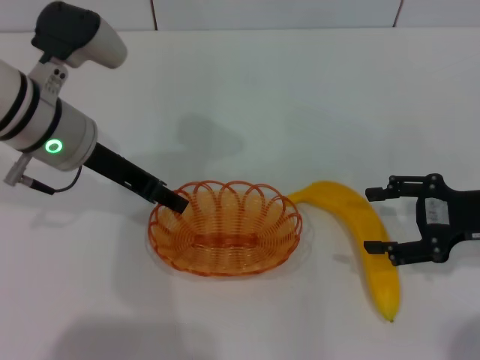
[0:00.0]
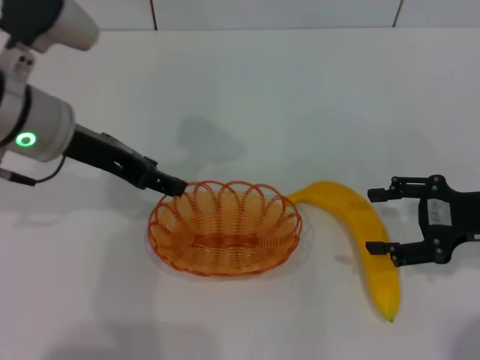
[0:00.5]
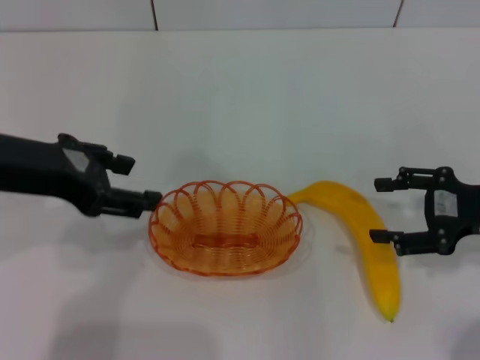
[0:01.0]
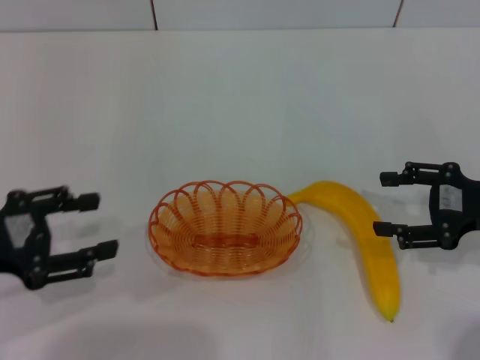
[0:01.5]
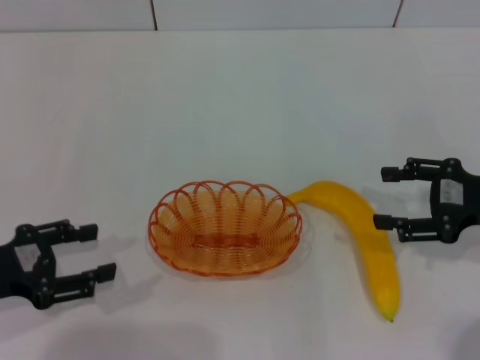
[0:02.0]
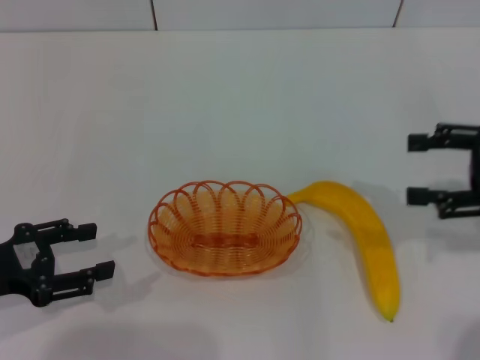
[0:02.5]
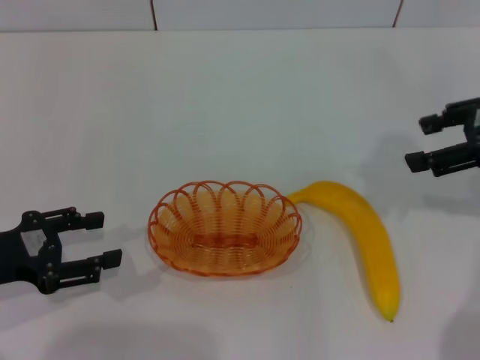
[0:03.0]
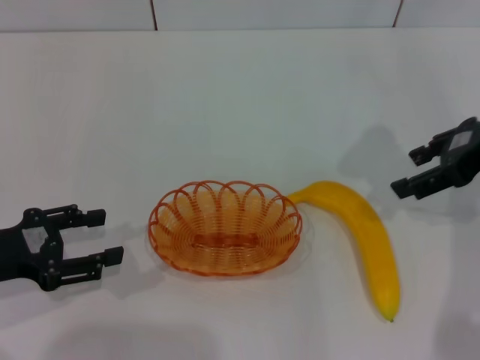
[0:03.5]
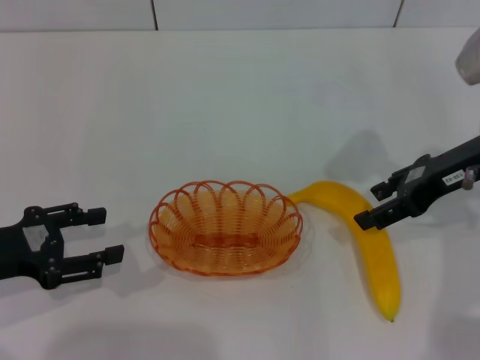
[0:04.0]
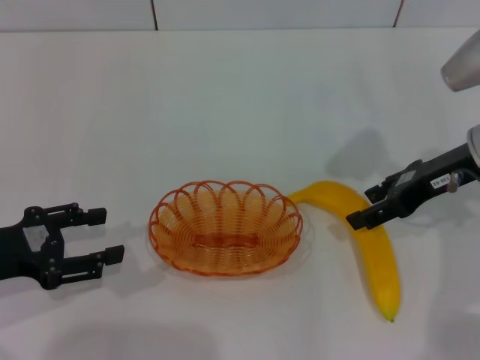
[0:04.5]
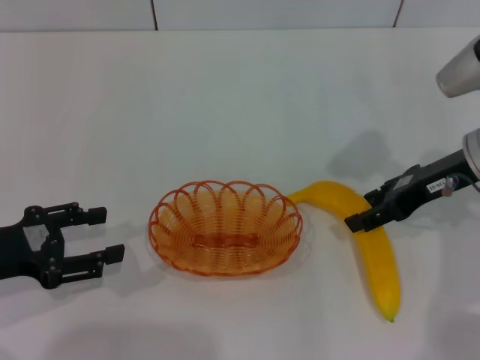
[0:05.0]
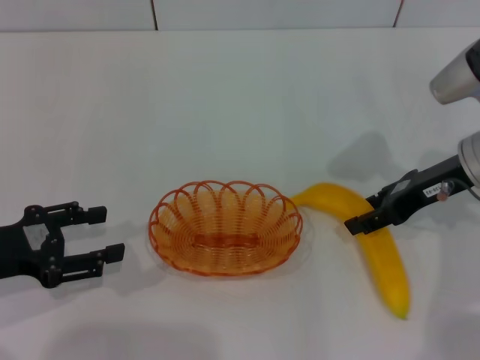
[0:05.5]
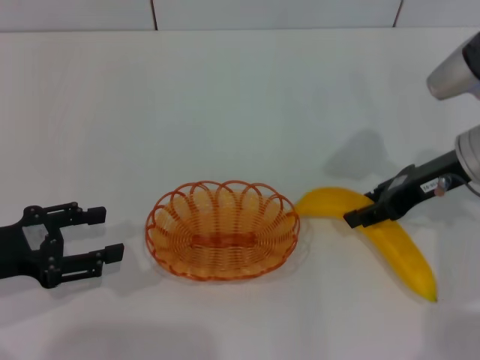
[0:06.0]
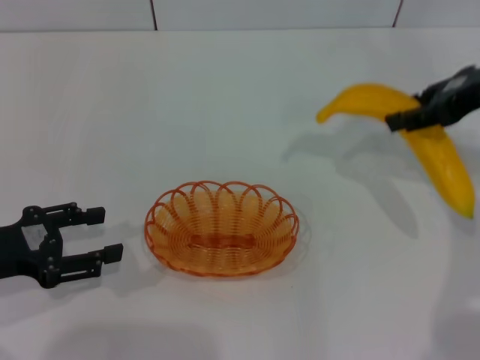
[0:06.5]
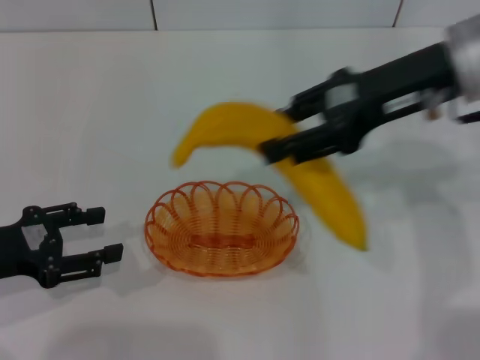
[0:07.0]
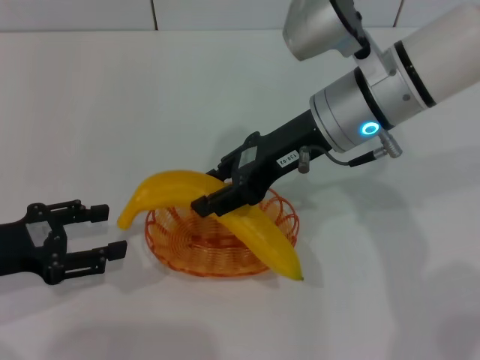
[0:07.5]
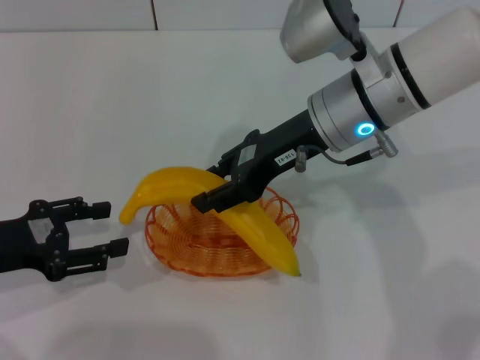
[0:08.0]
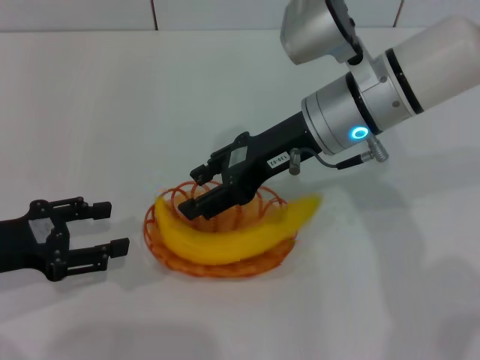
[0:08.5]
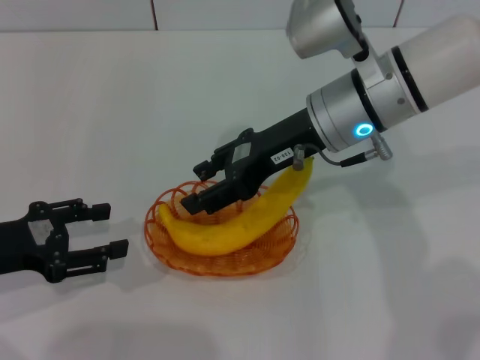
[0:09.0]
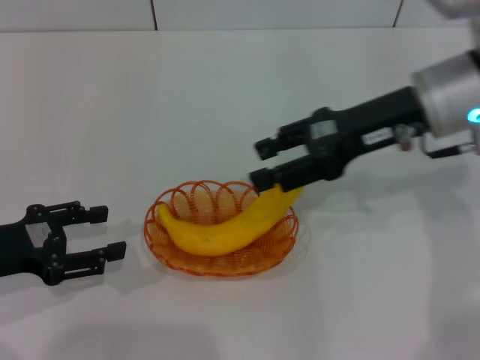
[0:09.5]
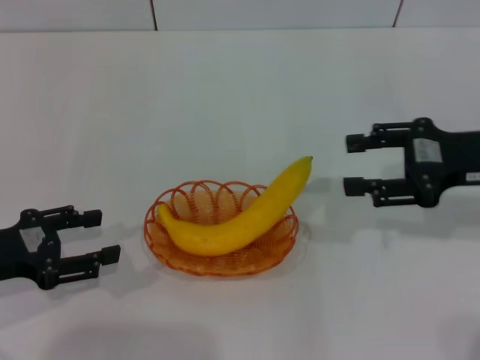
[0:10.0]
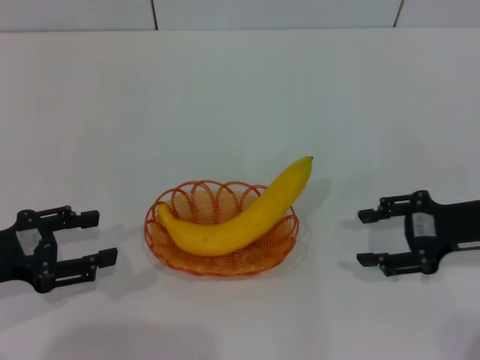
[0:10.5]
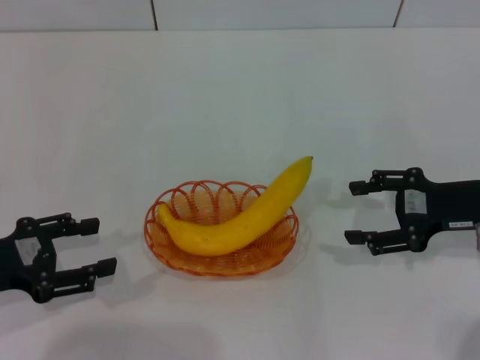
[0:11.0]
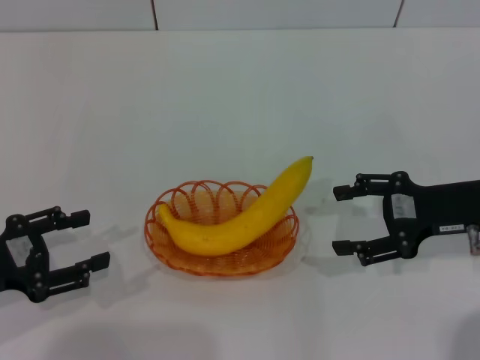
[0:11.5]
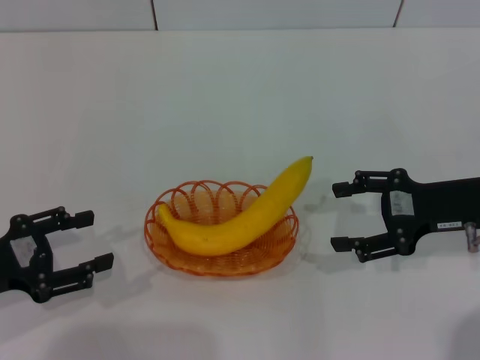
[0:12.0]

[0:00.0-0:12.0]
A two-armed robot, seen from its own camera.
Step, 0:01.5 to 0:06.5: Pick up the banana with the right gripper.
Step, 0:07.0 to 0:10.0: Place the banana into the basket with the right gripper.
0:00.0 to 0:02.0: The left gripper travels to the left, backward and downward by roughly 20 cm, and opens up.
0:02.0 to 0:04.0: The right gripper shifts roughly 10 cm to the left, forward and upward.
0:04.0 to 0:06.0: The right gripper closes its fingers.
0:06.0 to 0:08.0: The right gripper moves to the left, approximately 15 cm.
0:08.0 to 0:10.0: The right gripper heads to the right, covering some 20 cm, and opens up.
0:10.0 to 0:12.0: The right gripper opens its fingers.

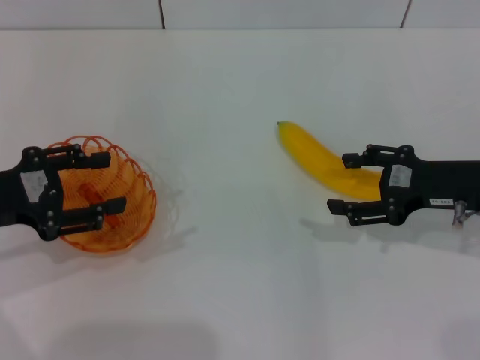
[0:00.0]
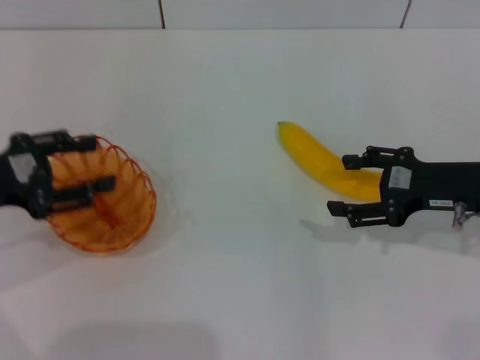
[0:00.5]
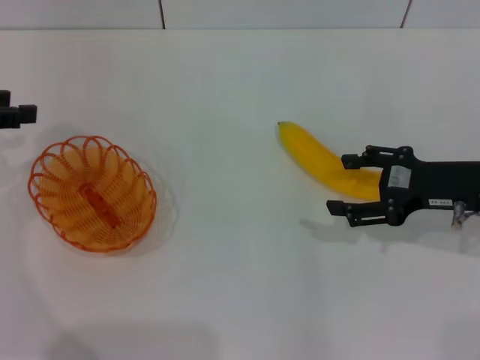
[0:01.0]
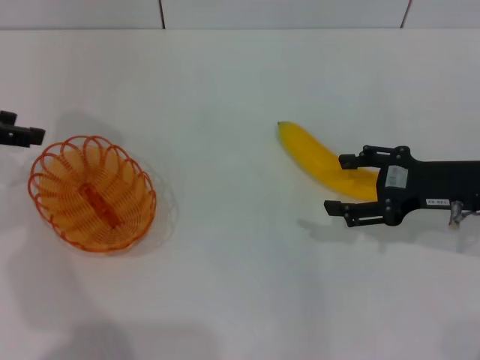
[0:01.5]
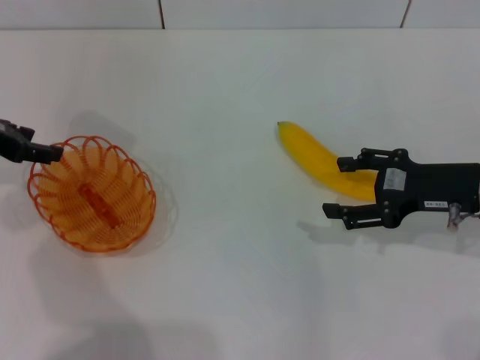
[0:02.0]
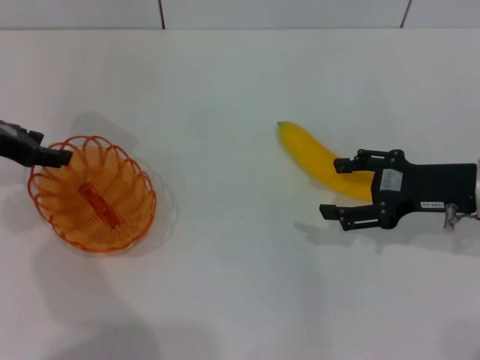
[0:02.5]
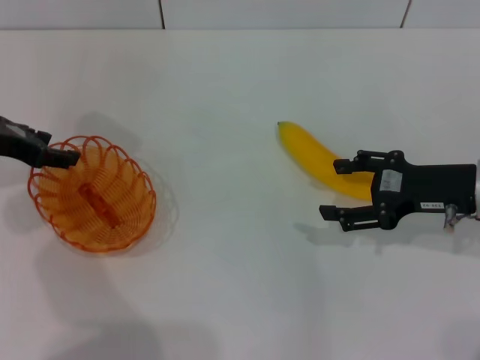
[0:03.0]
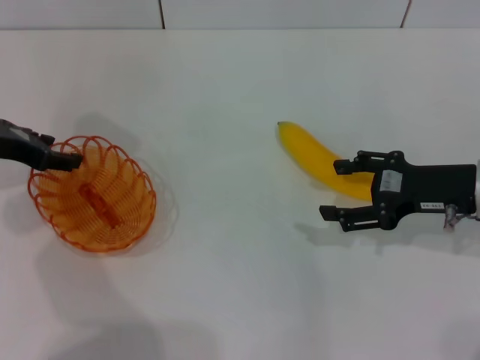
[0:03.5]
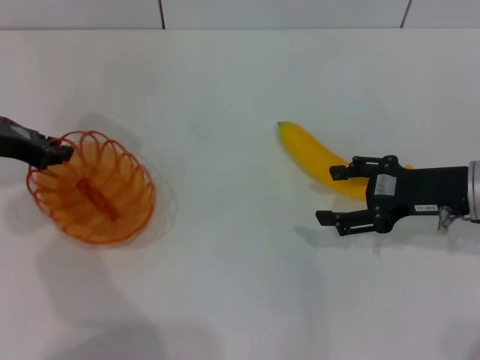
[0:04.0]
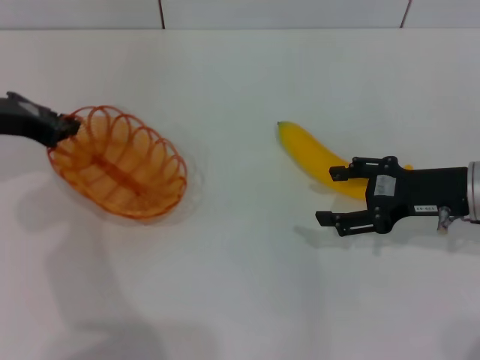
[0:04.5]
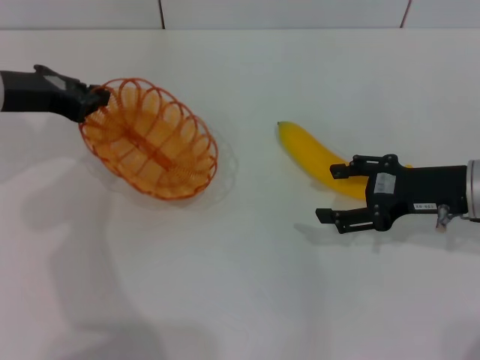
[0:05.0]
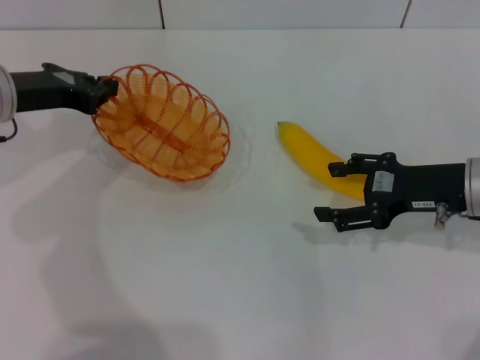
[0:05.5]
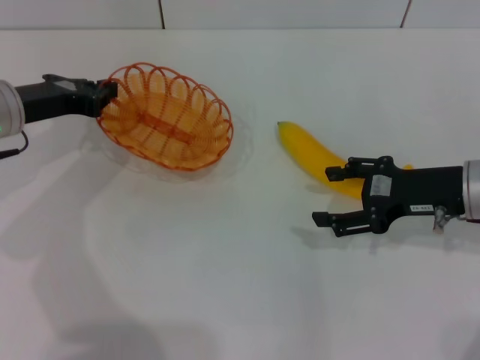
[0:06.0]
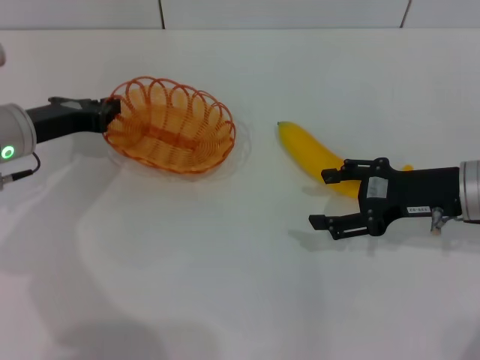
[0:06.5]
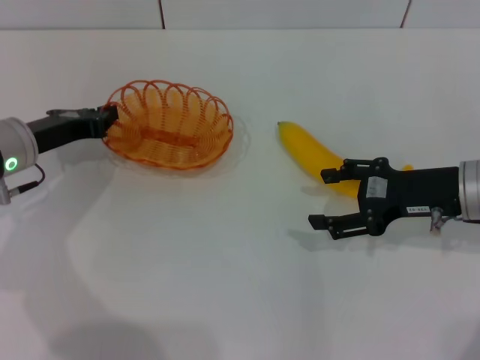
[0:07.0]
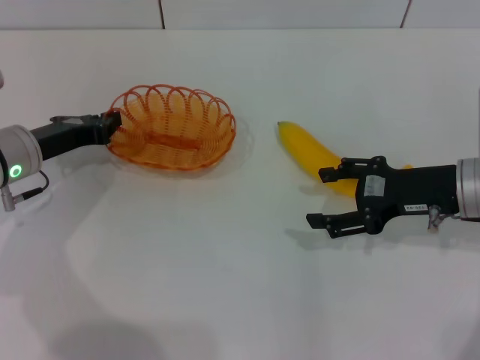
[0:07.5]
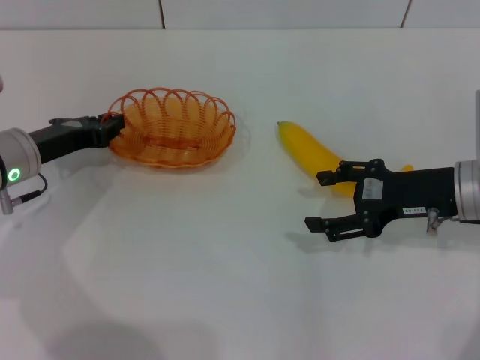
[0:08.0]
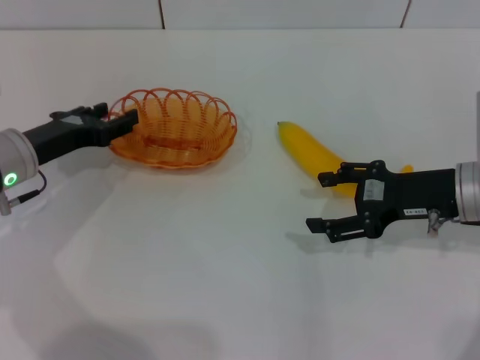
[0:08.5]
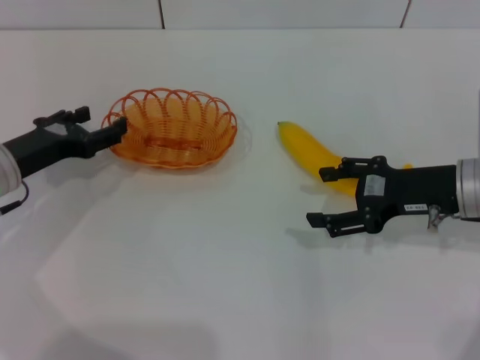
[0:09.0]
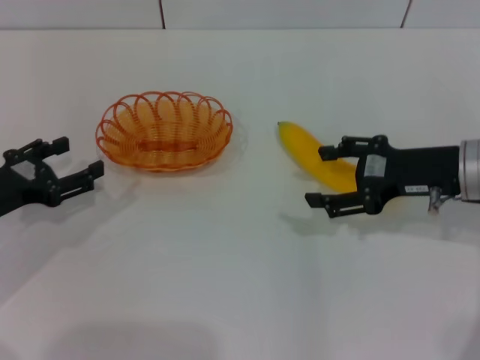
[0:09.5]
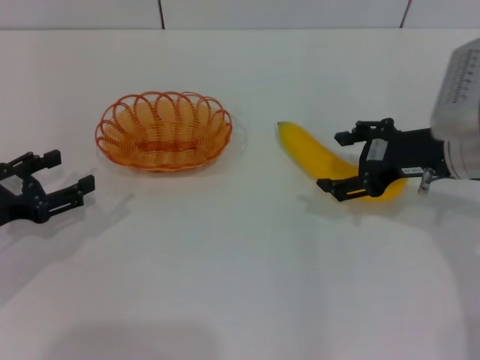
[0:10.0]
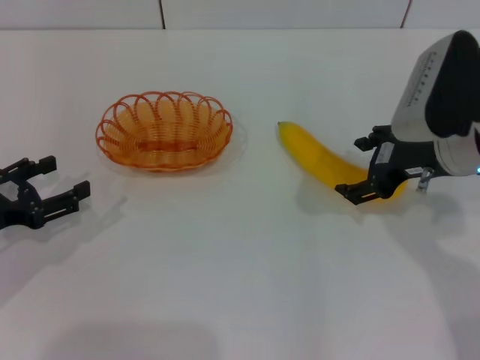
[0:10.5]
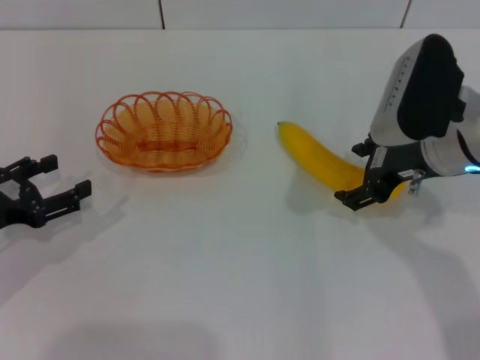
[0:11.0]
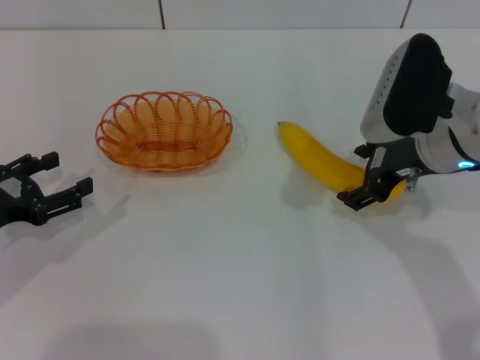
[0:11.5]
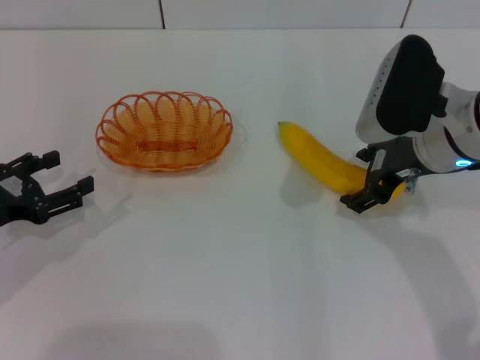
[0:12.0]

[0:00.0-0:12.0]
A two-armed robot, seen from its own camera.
Step, 0:00.0 to 0:04.5: Pick up the basket with the left gripper.
Step, 0:05.5 to 0:09.0: Place the basket in the center of view with the left gripper.
0:00.0 to 0:02.0: The left gripper is displaced forward by approximately 10 cm.
0:02.0 to 0:04.0: The grippers stay close to where they were, moving slightly.
0:04.0 to 0:06.0: The left gripper closes.
0:06.0 to 0:08.0: The left gripper goes roughly 5 cm downward.
0:08.0 to 0:10.0: The left gripper is displaced backward and to the left by about 10 cm, and opens up.

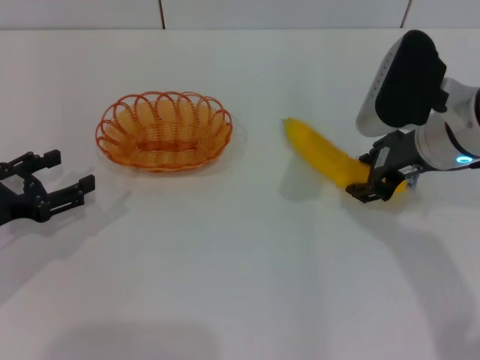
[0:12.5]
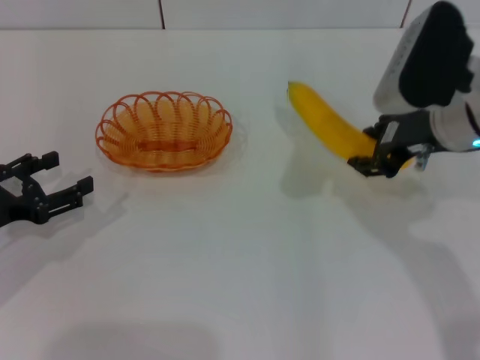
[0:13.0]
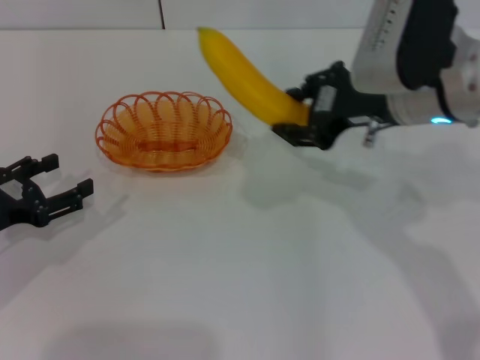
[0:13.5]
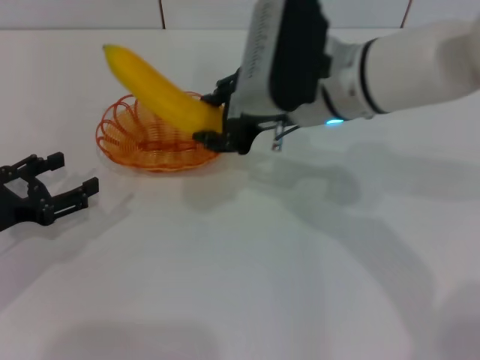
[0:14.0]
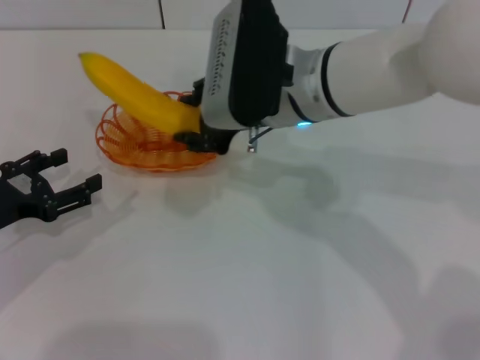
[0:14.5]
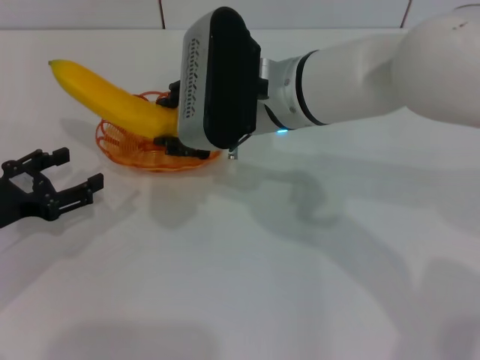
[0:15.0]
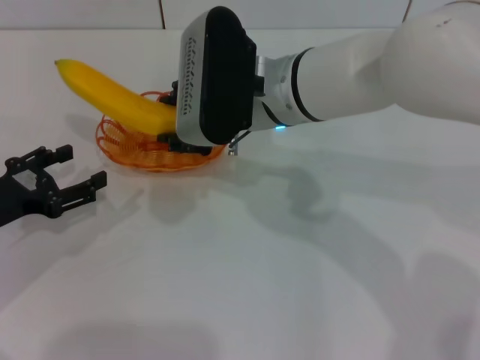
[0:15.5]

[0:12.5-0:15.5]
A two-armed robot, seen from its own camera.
0:12.5 to 0:14.0: The right gripper shifts some 10 cm to the left.
0:14.0 to 0:15.5: The grippers stay close to where they were, moving slightly.
